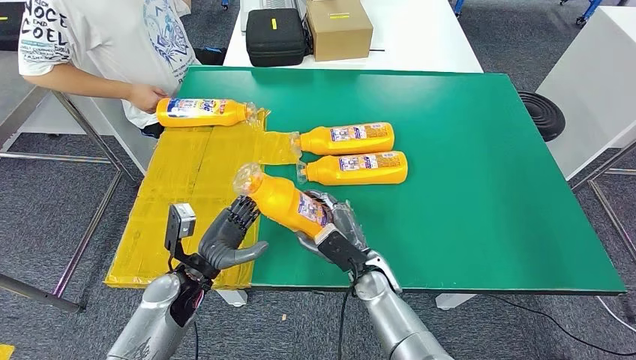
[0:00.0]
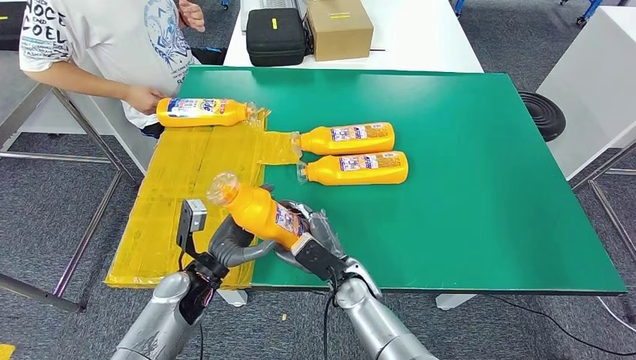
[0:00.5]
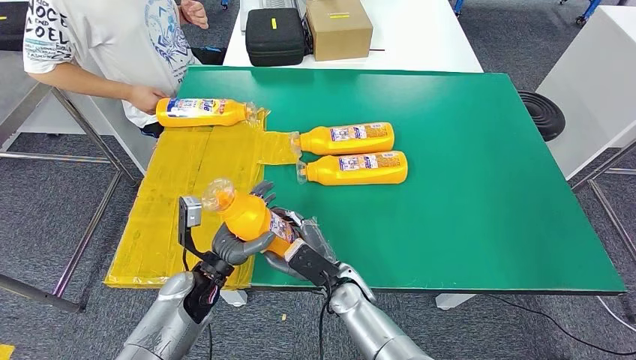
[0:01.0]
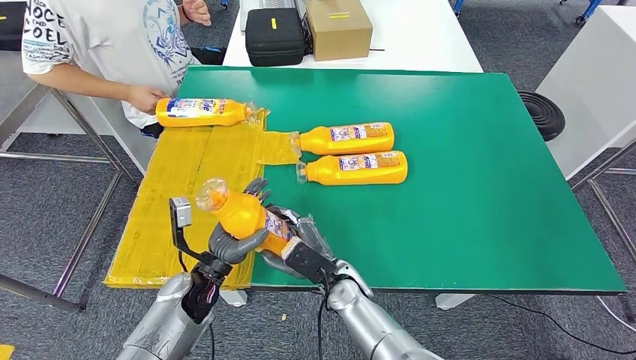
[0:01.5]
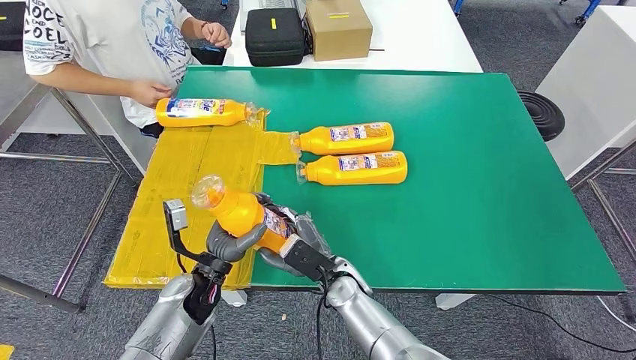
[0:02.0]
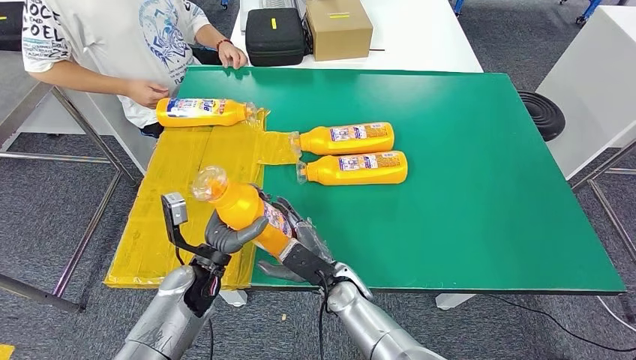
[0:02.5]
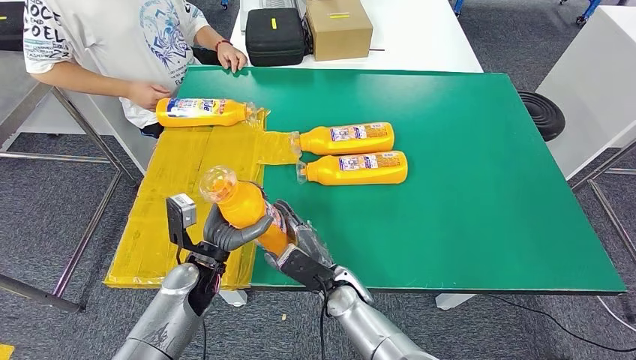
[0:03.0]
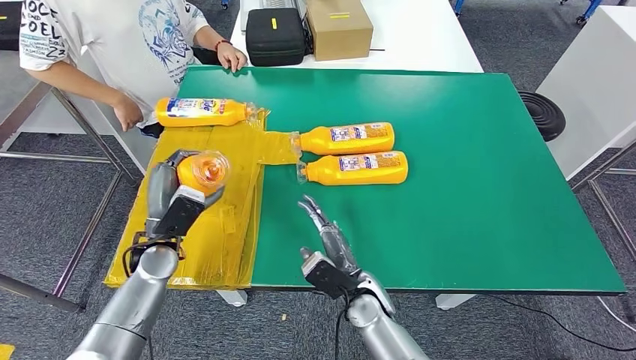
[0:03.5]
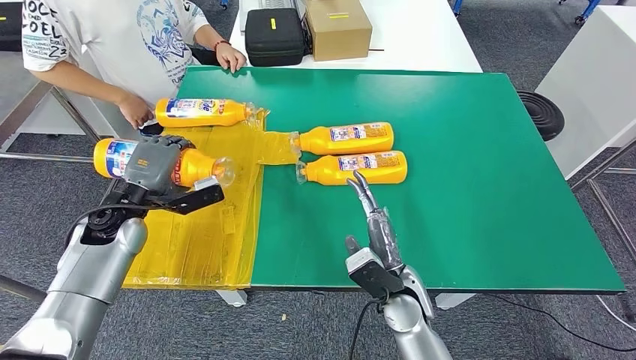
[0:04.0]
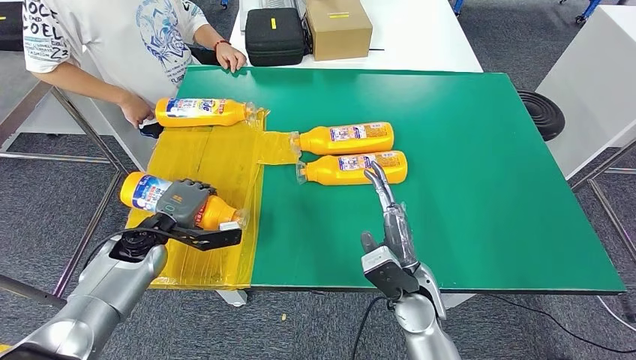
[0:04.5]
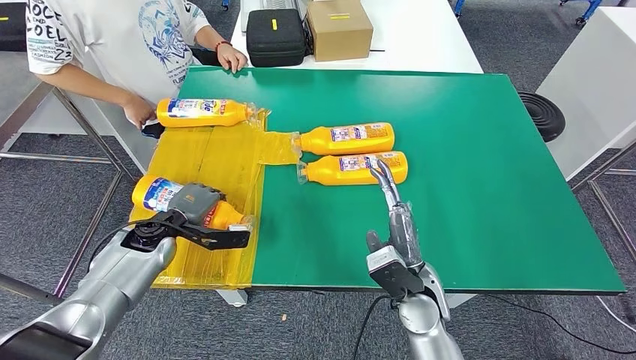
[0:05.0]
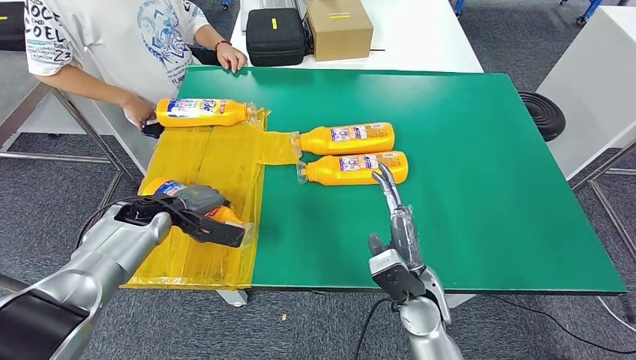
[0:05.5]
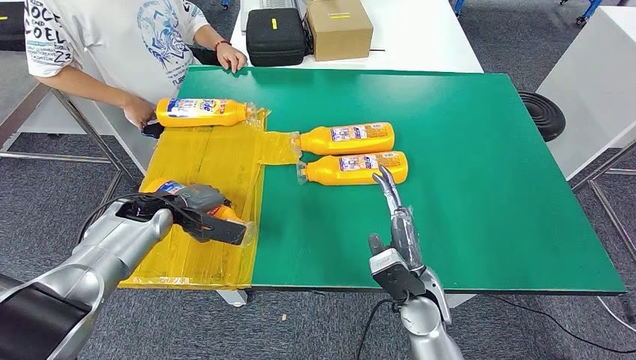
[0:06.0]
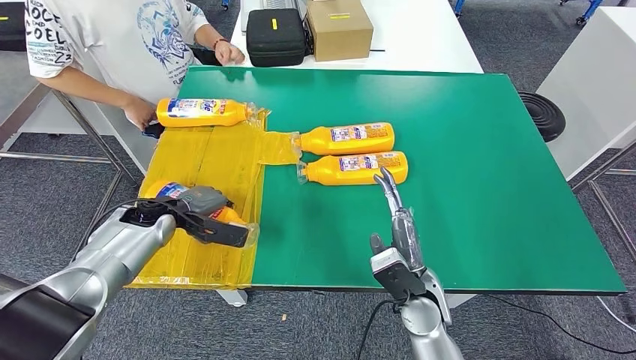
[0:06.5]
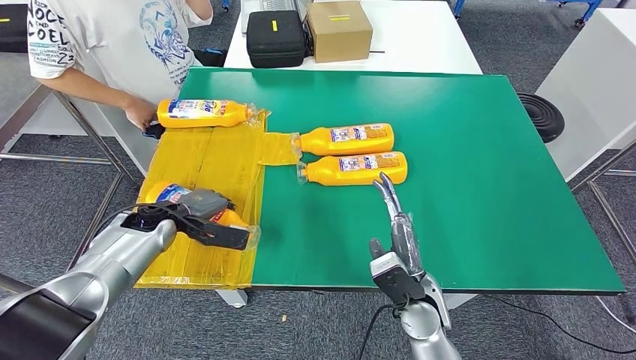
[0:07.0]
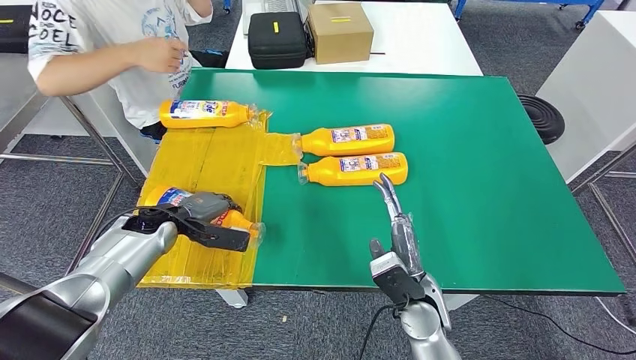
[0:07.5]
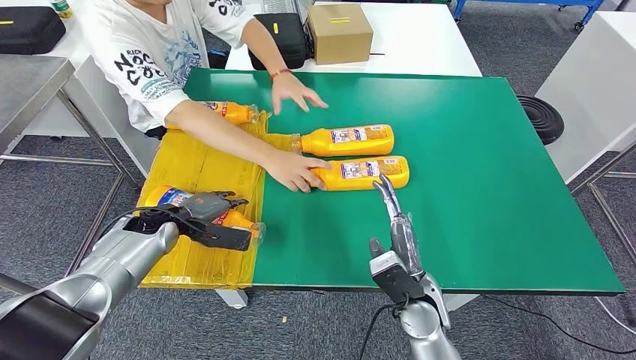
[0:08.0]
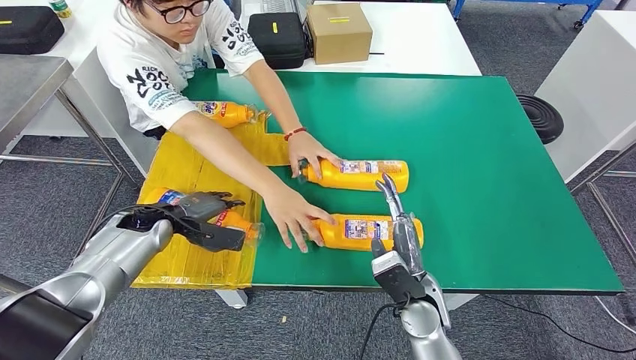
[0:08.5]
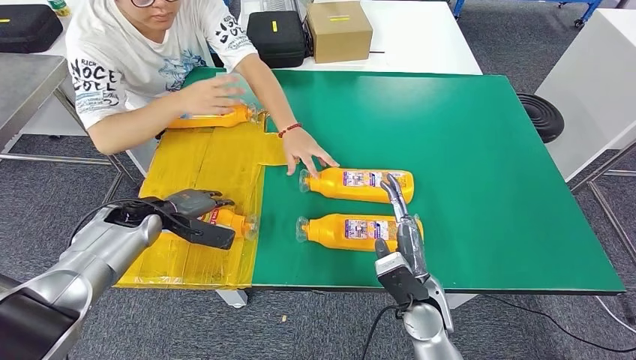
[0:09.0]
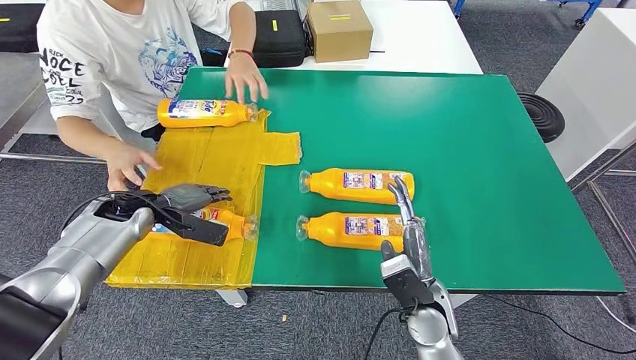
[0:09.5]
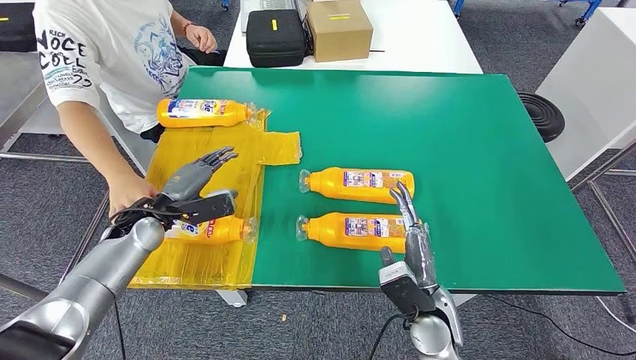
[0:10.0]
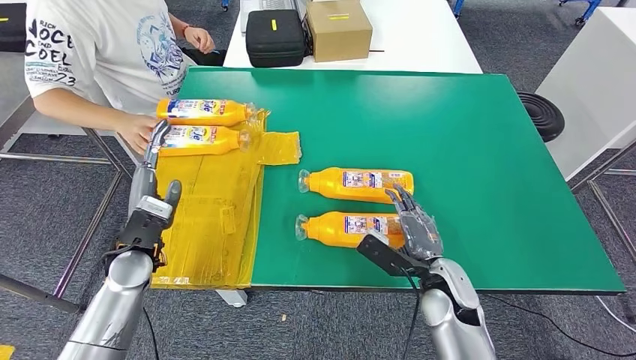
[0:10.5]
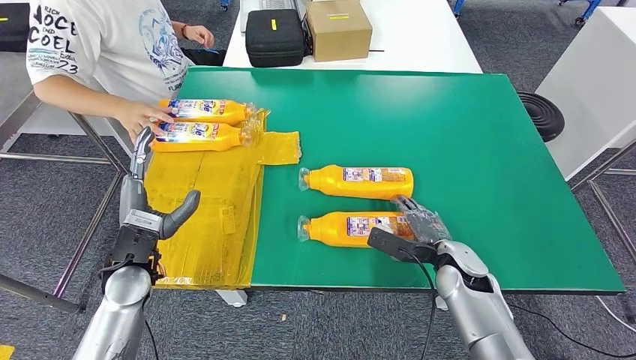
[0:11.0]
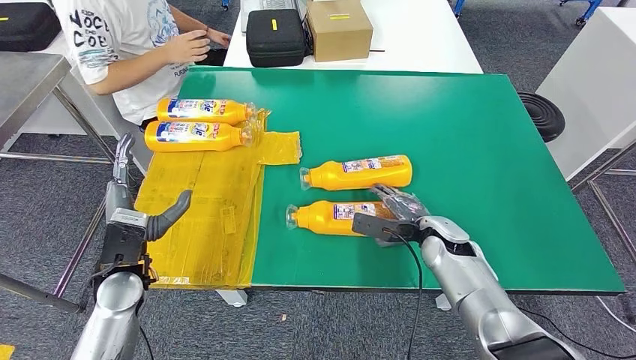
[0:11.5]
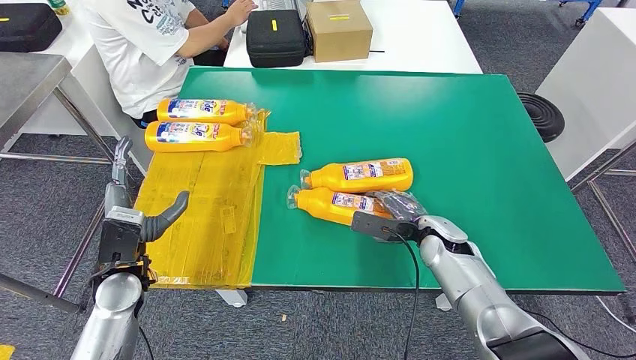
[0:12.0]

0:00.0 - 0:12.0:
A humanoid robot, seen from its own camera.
Step, 0:00.5 - 0:05.5: Flip the bottle to face forward.
0:00.0 - 0:02.0: The right hand moves to the left, about 5 cm.
0:04.0 - 0:06.0: The left hand ends up about 5 cm from where it was.

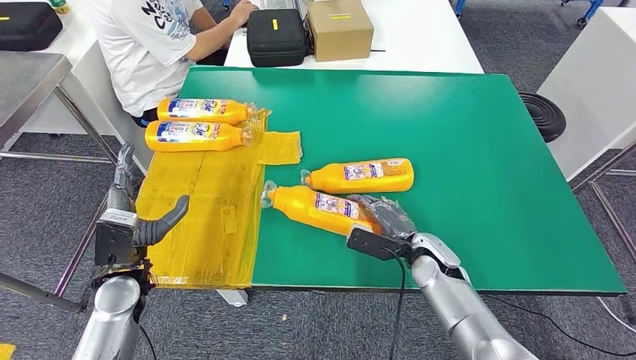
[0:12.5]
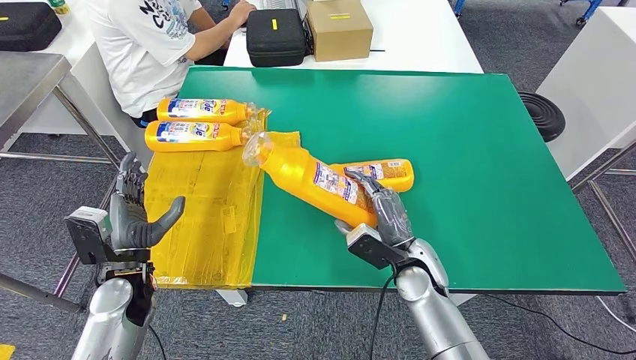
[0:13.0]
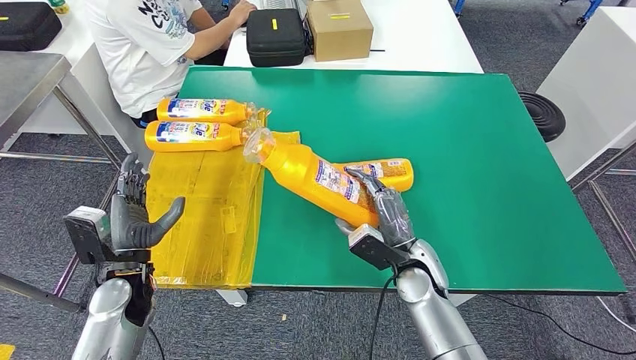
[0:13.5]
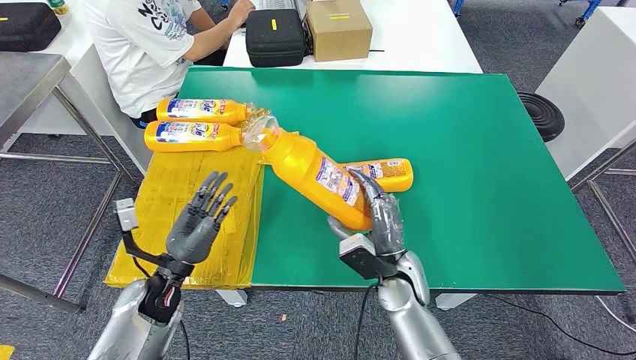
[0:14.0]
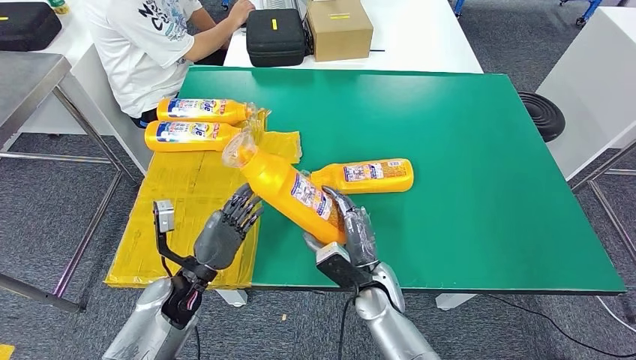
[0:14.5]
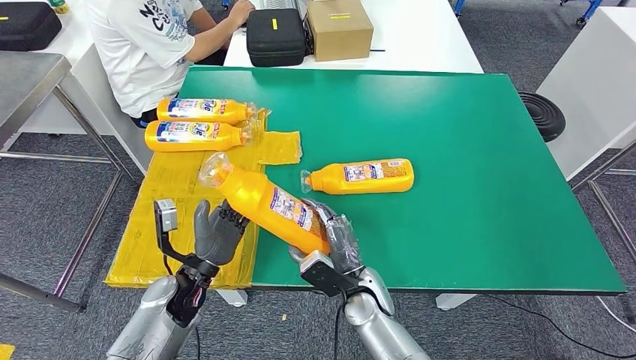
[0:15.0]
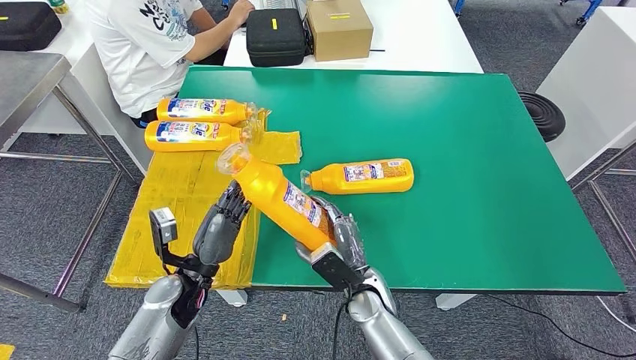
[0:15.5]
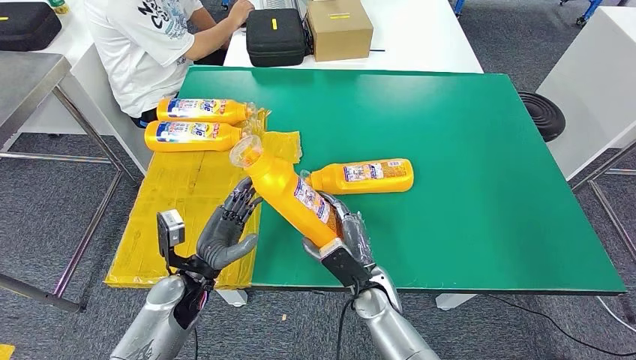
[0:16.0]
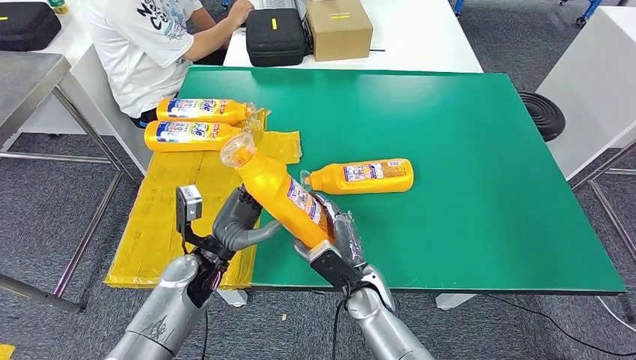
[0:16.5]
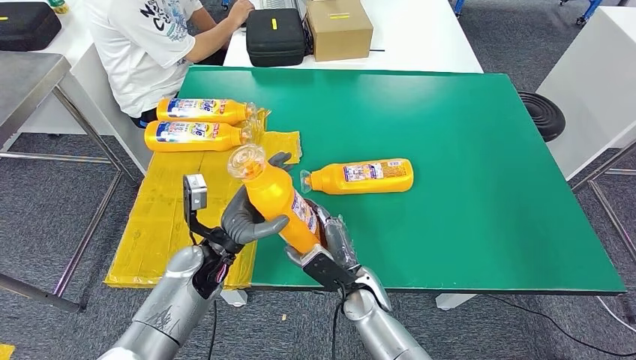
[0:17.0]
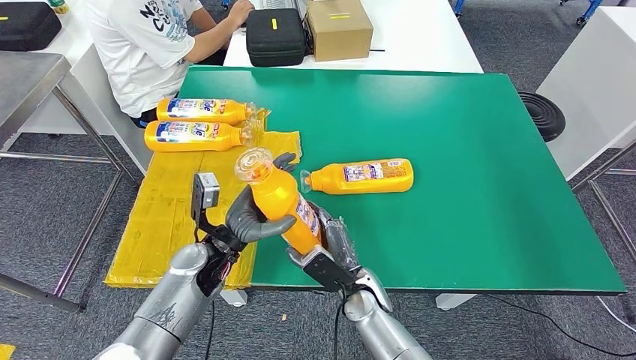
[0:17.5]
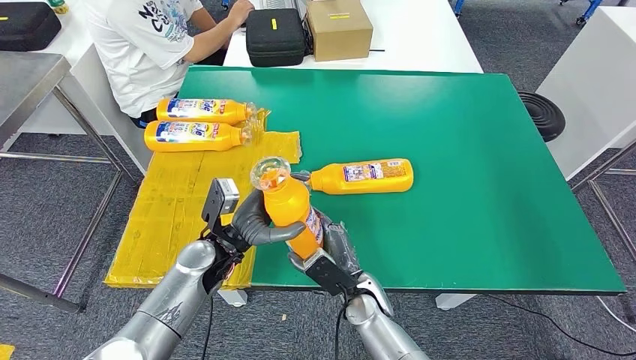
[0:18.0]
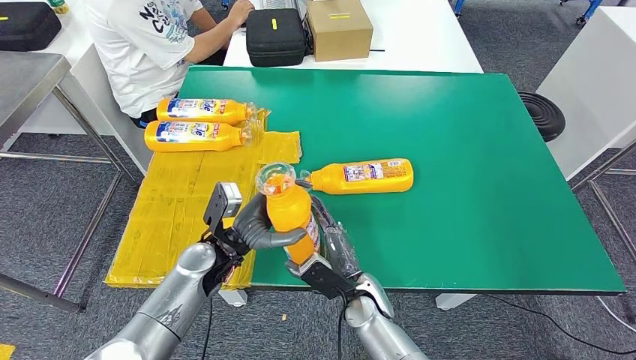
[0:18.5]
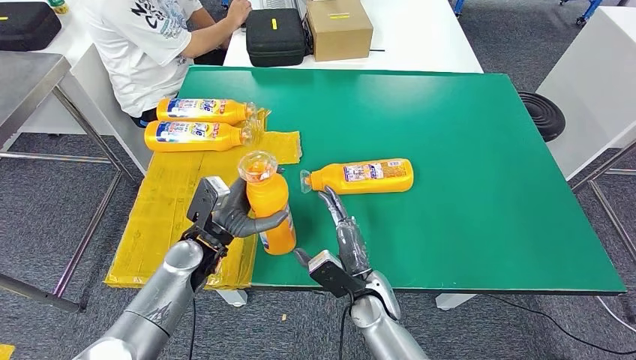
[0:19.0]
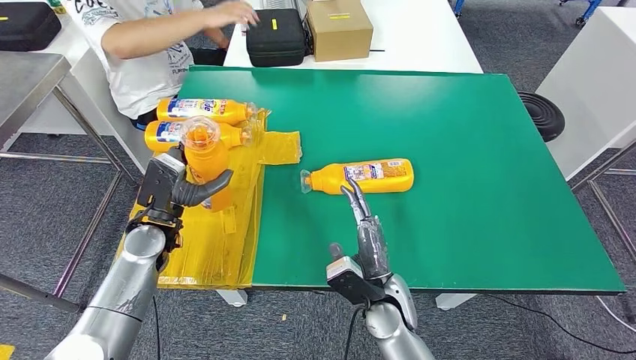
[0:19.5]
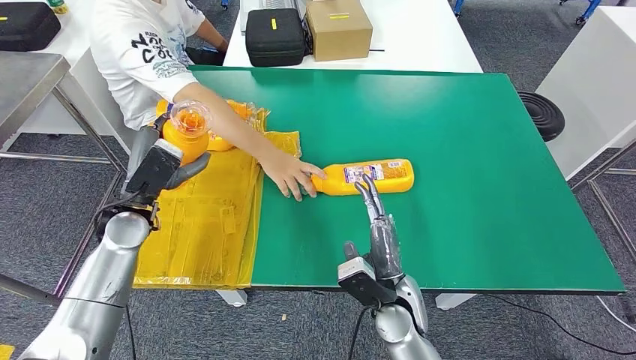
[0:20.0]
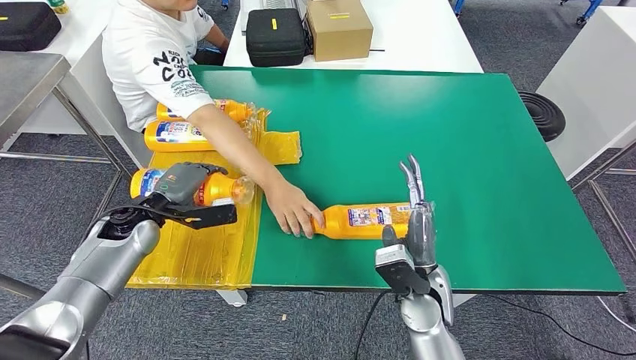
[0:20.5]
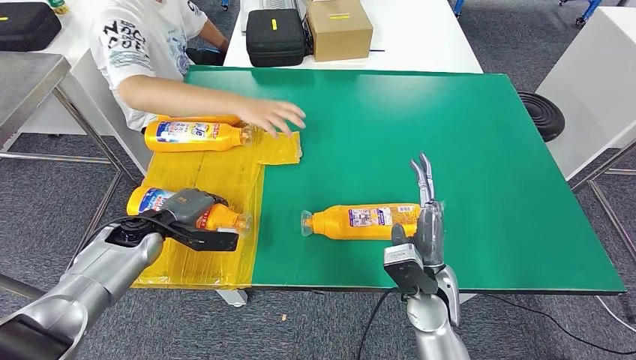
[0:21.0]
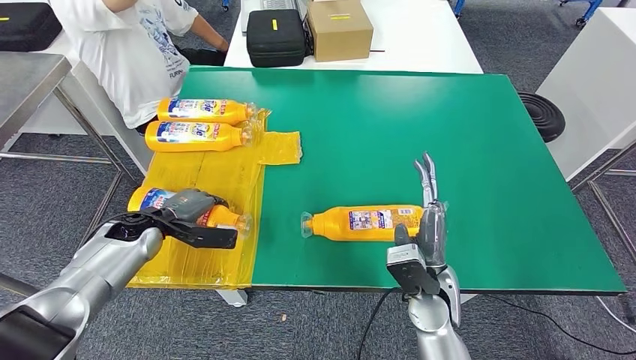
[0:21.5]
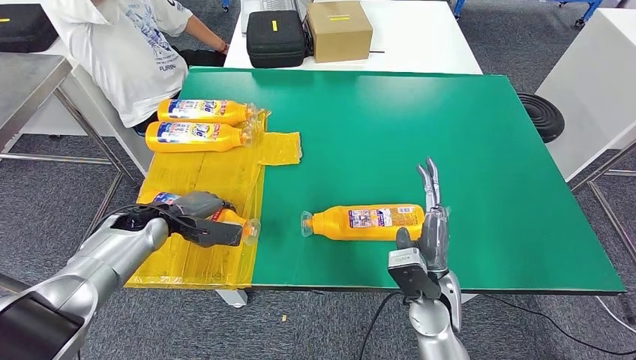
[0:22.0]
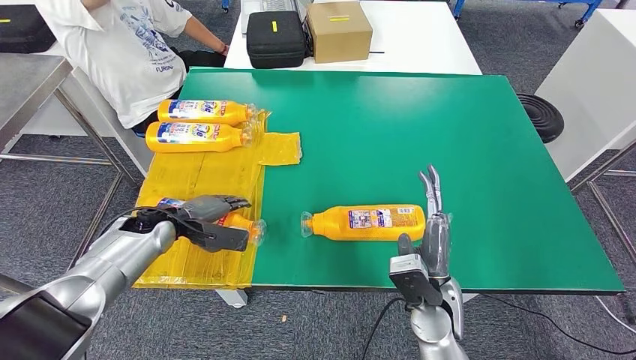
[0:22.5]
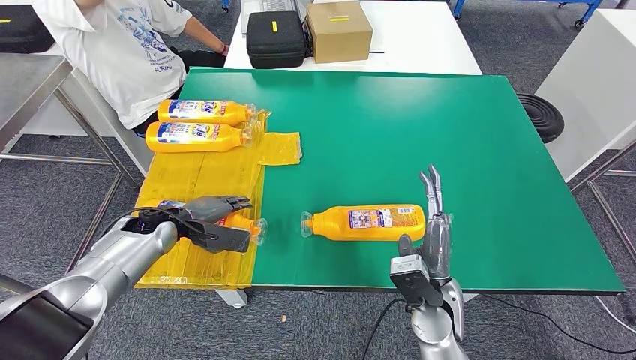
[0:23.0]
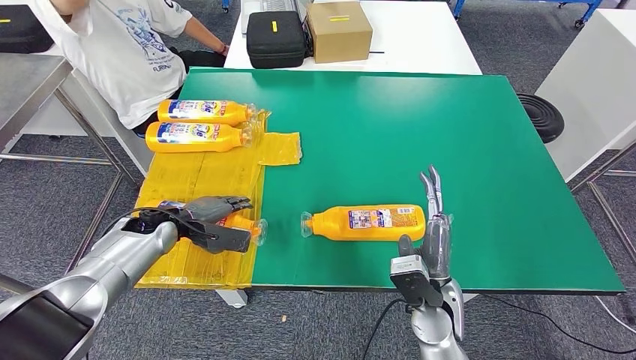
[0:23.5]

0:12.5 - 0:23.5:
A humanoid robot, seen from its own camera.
Step, 0:12.5 - 0:14.5: Pick up the bottle from the table.
Step, 0:15.0 - 0:22.5: Flip the bottle to face forward.
0:12.5 - 0:14.5: The right hand shifts approximately 15 cm to the left and backward. The left hand heads to the right, covering approximately 10 cm.
0:14.5 - 0:16.0: The hands move only a little.
0:16.0 - 0:18.0: The left hand heads to the right, covering about 5 cm.
0:21.5 - 0:23.5: The hands move only a little.
